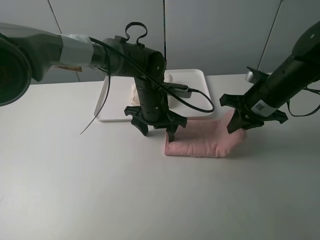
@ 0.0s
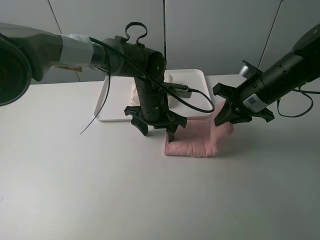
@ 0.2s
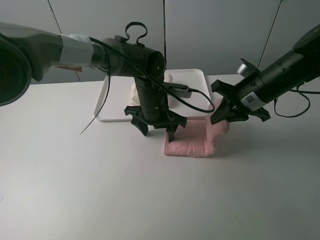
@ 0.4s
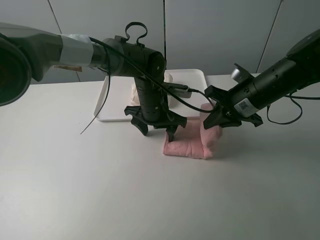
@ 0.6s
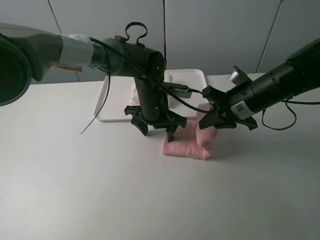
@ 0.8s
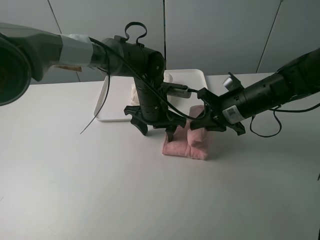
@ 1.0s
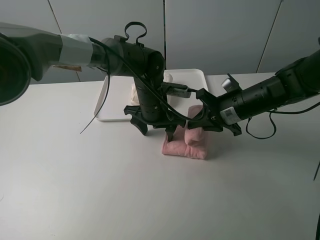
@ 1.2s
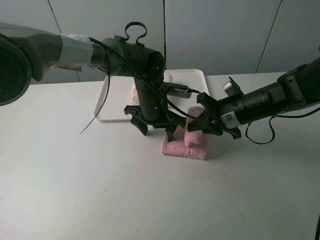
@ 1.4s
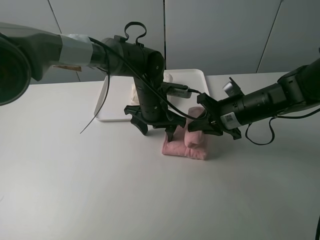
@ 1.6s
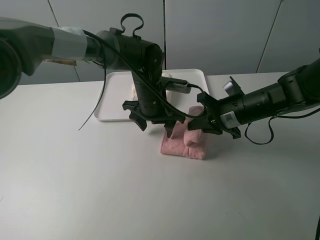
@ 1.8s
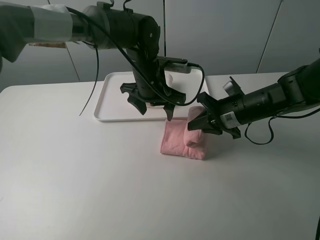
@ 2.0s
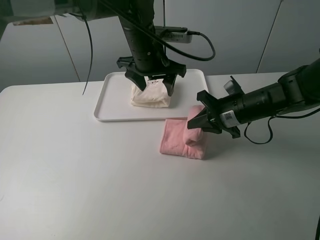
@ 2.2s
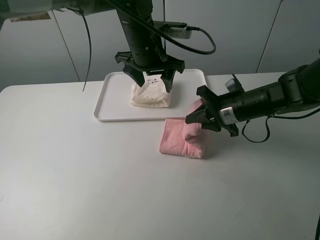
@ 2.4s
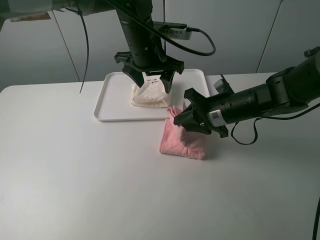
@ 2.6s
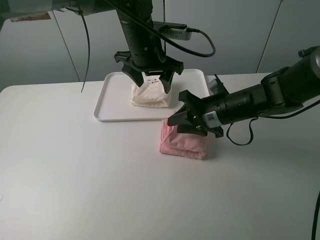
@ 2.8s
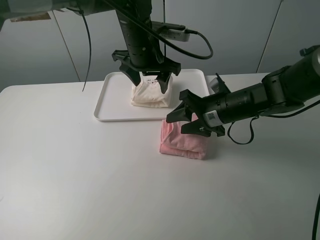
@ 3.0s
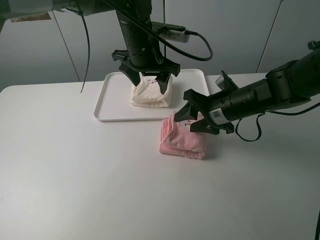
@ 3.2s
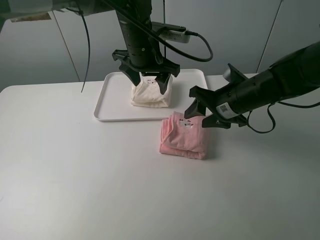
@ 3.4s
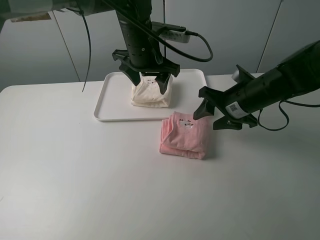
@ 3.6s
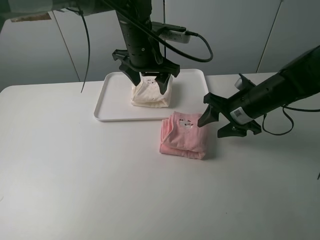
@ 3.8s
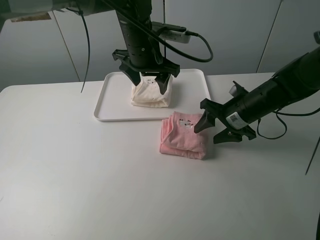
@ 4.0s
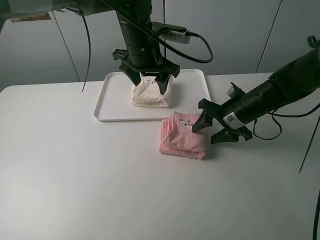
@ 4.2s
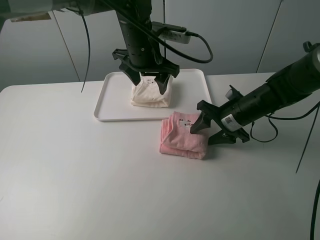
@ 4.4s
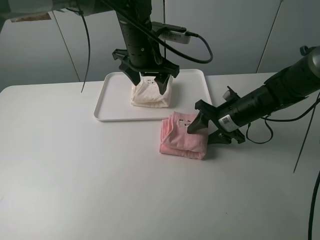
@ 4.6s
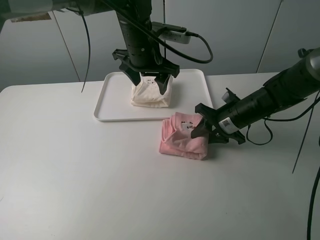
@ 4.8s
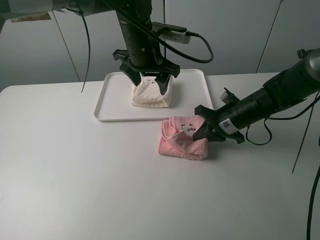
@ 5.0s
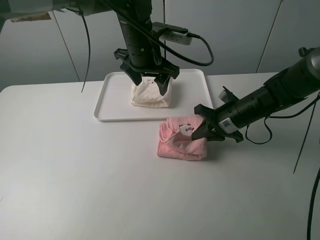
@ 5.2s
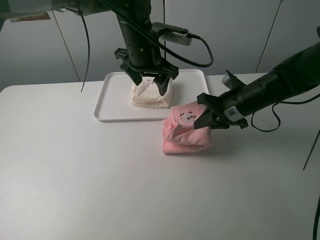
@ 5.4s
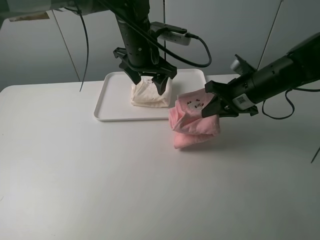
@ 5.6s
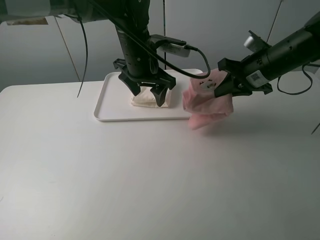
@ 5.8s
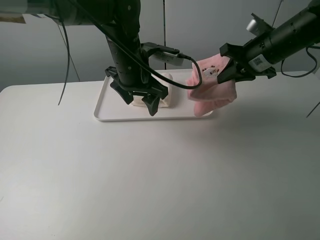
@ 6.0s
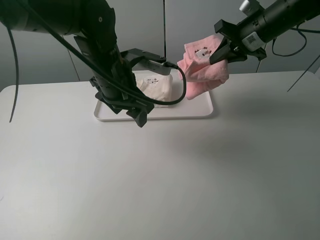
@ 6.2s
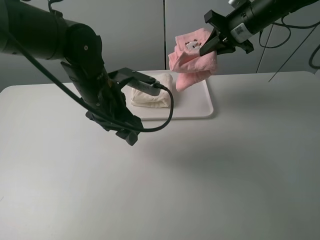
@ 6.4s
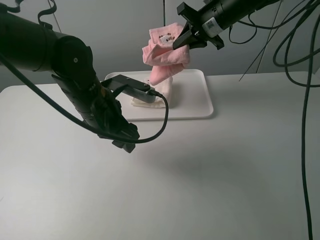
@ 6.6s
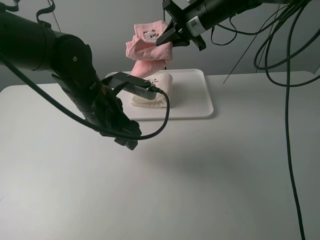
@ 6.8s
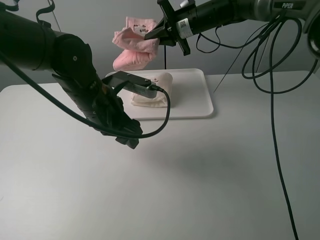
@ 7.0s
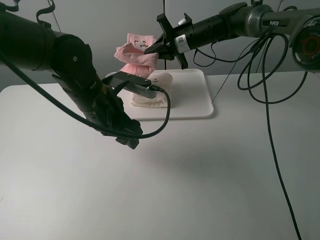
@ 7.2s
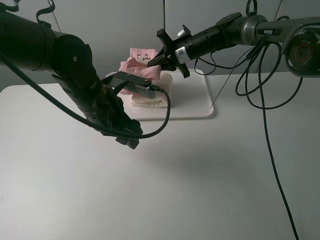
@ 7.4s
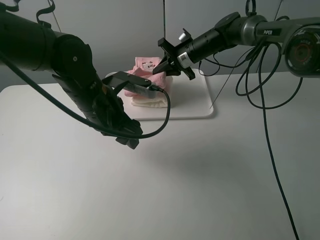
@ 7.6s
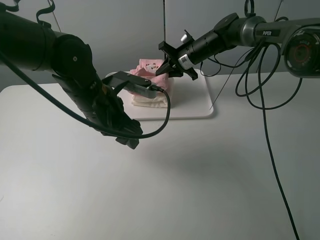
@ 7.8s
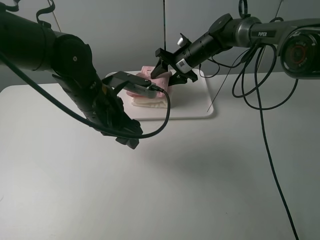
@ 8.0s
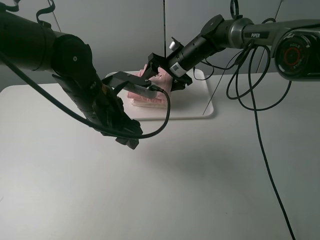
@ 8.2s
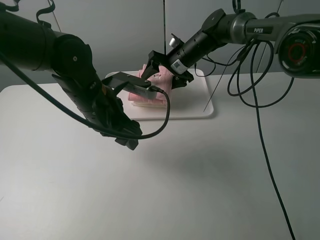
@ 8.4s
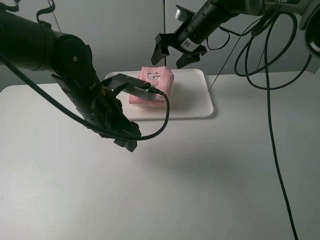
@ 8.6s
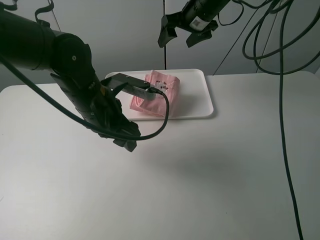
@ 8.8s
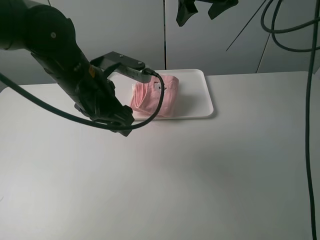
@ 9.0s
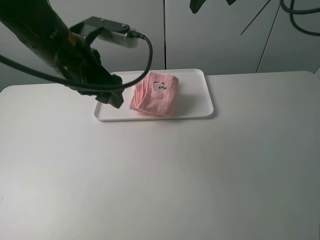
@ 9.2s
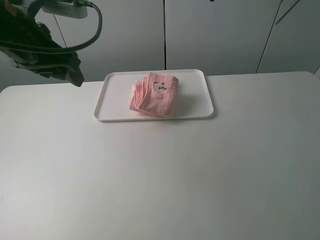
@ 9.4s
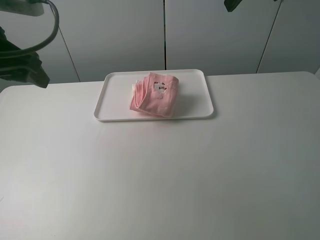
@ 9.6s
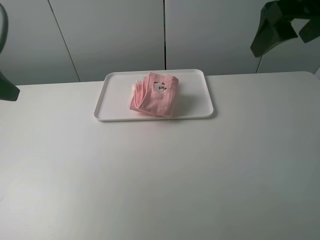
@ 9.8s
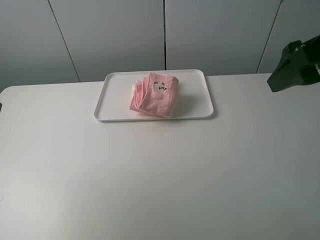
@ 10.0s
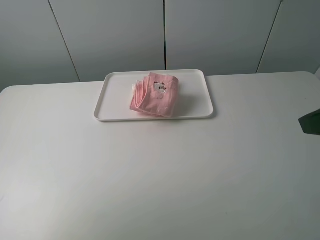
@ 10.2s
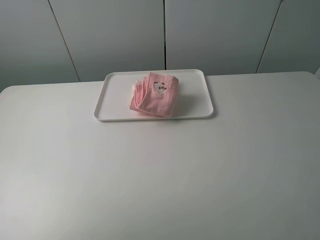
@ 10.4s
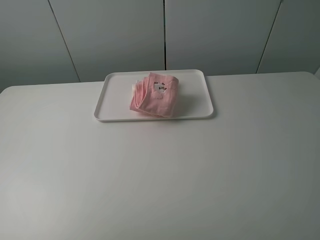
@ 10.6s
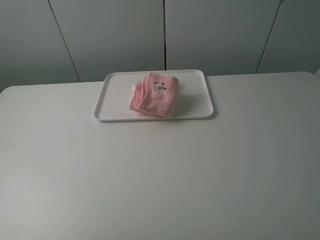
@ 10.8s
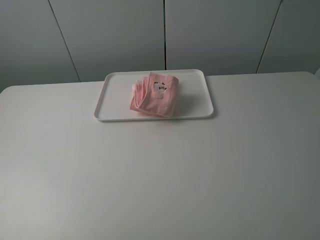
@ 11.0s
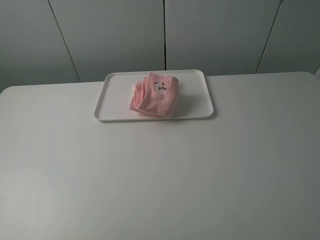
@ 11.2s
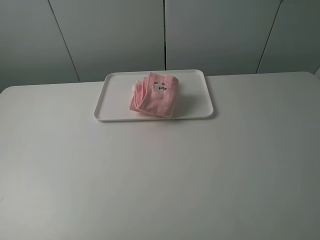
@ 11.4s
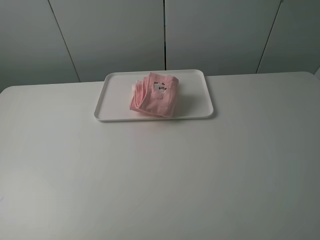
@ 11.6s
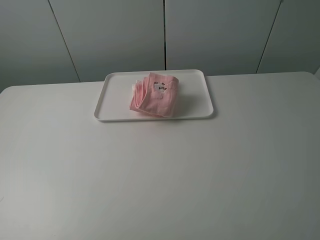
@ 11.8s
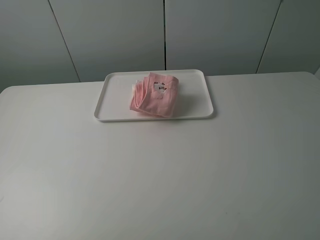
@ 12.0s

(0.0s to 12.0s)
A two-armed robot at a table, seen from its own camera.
Task of the whole recording: fold one of the towels by two grippers and place it on the tray,then fold another towel by two grippers and place it on the folded towel.
Step, 0.0s - 3.2s: Fold the pink towel from right to left with right gripper.
Step, 3.4s - 4.8s: Grasp the pink towel with the right gripper.
Step, 5.0s - 8.2s: Place the pink towel on the white towel with the right gripper.
0.0s - 1.6s: The right gripper shifts by some 5 cm.
1.6s - 3.0s: The right gripper opens; the left gripper moves upward, about 15 cm.
3.0s - 4.4s: The right gripper ends up about 5 cm from where it was.
4.4s - 6.0s: The right gripper travels upward by some 15 cm, and closes.
6.0s - 7.6s: The right gripper shifts about 20 cm forward, to the left and downward; the left gripper is displaced backward and to the left by about 10 cm.
7.6s - 9.0s: The left gripper moves upward, about 5 cm. Meanwhile the right gripper shifts some 20 cm upward, and opens.
9.0s - 10.4s: The right gripper heads backward, covering some 40 cm; the left gripper moves backward and to the left, about 30 cm.
10.4s - 12.0s: The left gripper travels backward by about 5 cm.

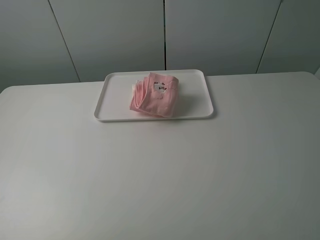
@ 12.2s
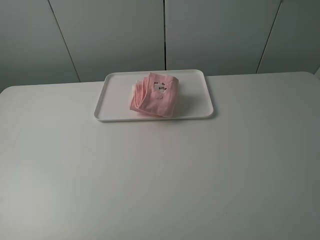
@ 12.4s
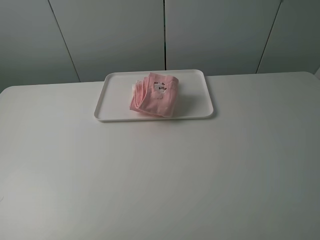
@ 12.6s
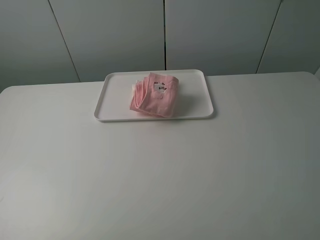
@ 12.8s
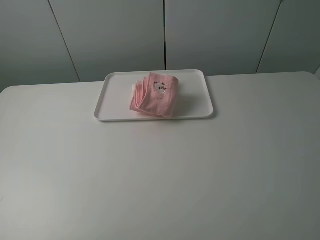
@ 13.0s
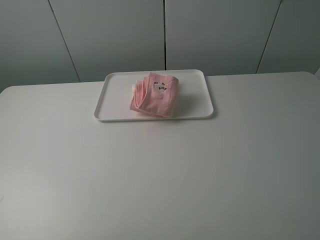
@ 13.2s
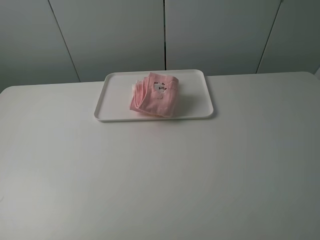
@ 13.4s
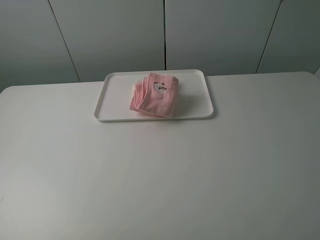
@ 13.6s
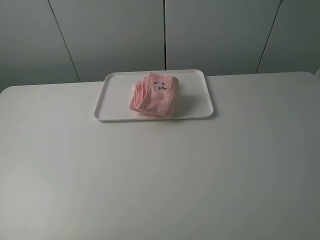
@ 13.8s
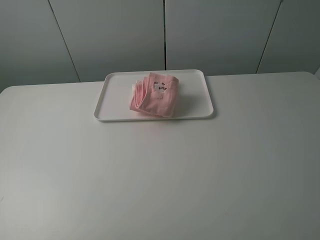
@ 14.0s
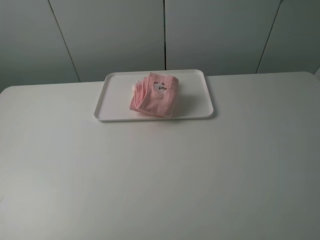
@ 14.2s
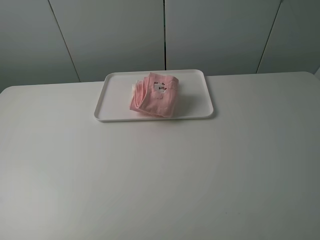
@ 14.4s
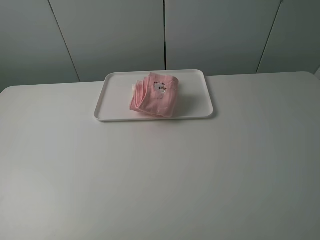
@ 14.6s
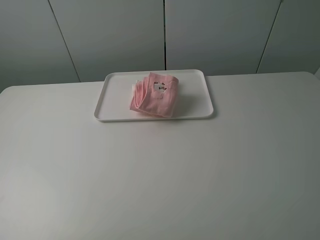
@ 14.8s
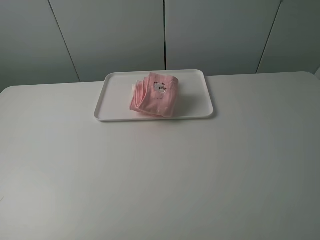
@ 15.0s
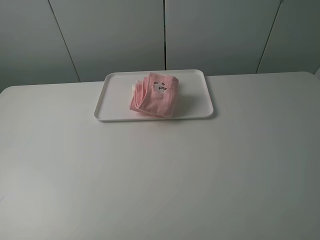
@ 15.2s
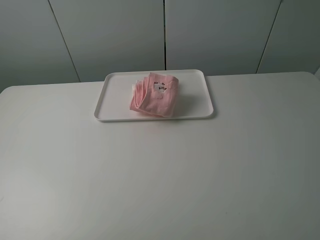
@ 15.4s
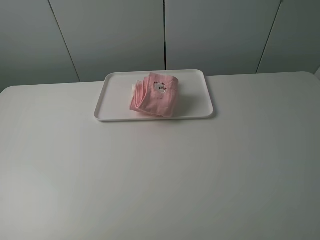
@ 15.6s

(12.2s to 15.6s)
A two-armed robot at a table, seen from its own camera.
Task of the whole recording: fold one of the towels by two grippers and place it on the tray,then fold another towel by two grippers and place it on the folded towel.
12.2s - 15.6s: Both grippers stay put.
